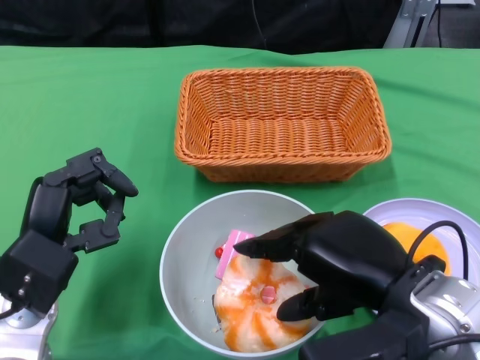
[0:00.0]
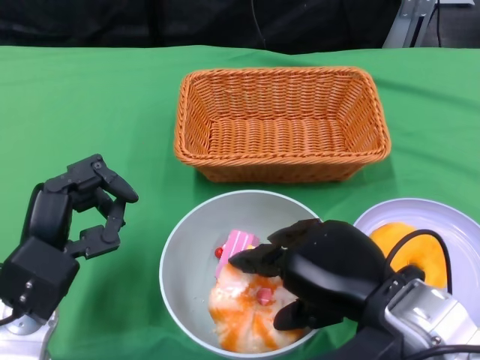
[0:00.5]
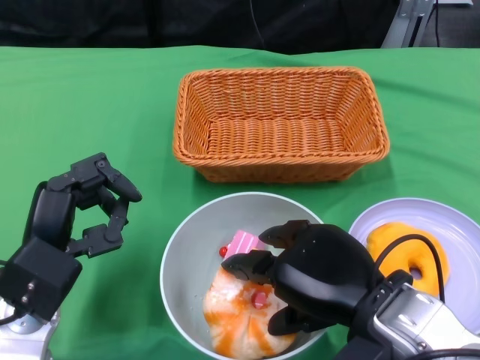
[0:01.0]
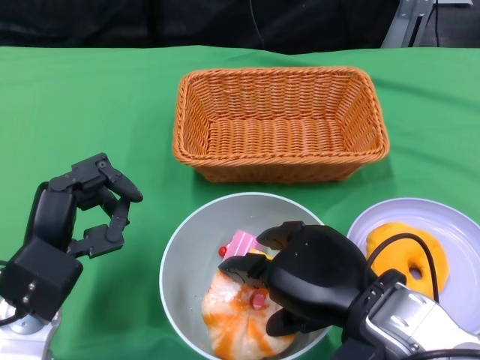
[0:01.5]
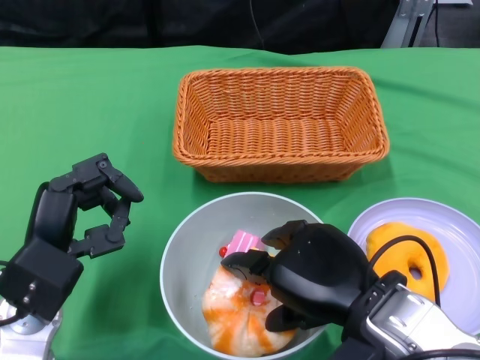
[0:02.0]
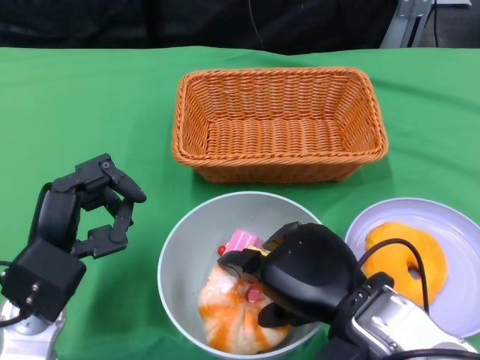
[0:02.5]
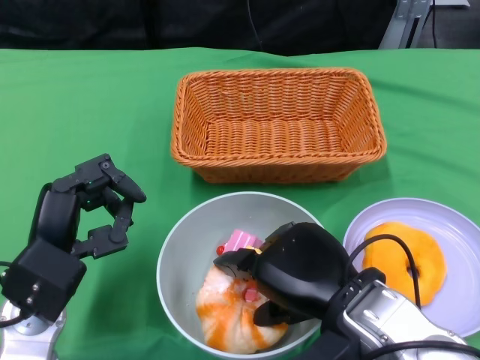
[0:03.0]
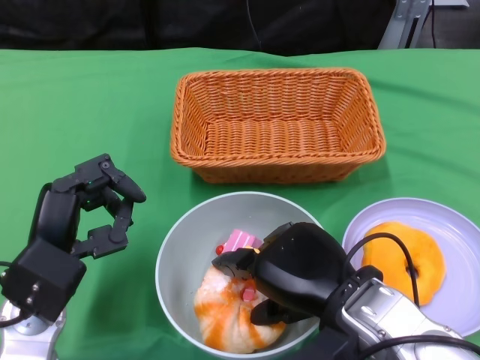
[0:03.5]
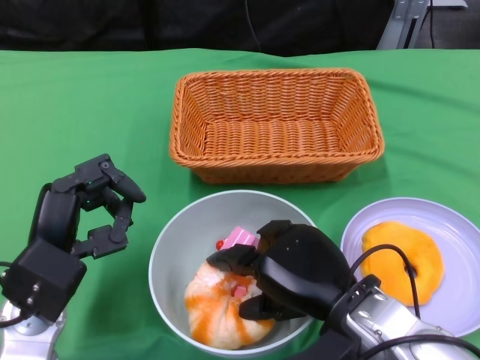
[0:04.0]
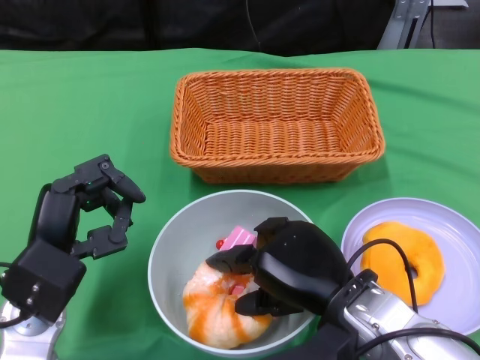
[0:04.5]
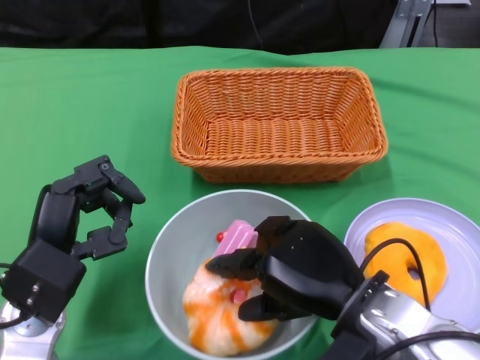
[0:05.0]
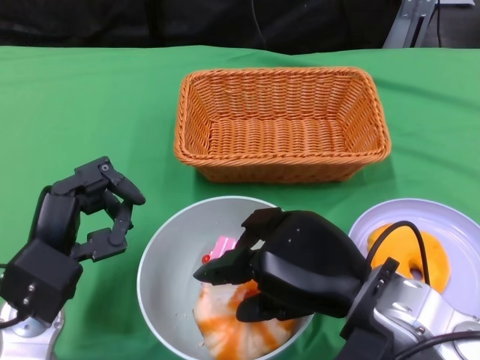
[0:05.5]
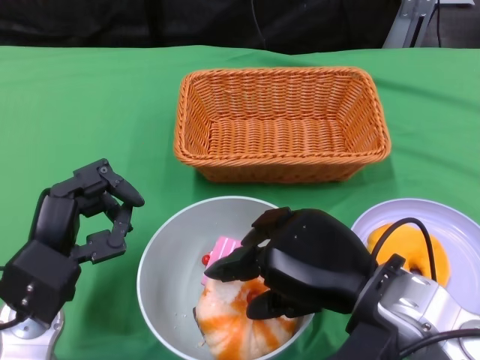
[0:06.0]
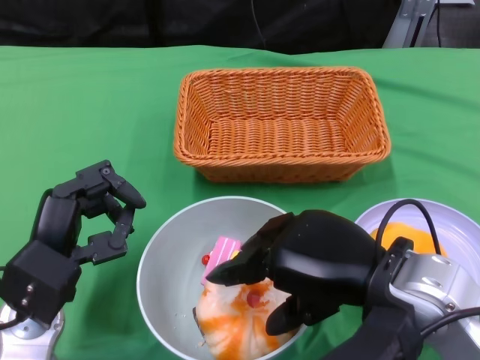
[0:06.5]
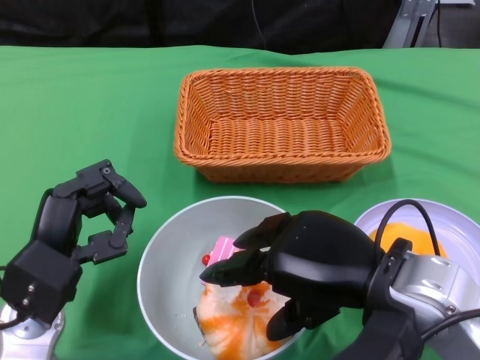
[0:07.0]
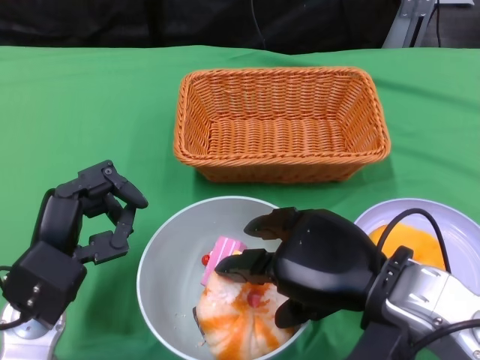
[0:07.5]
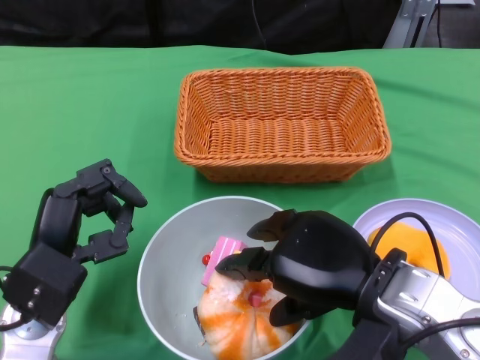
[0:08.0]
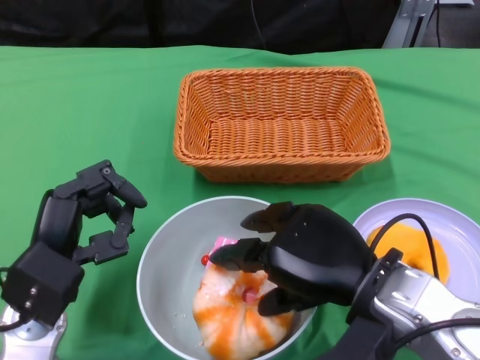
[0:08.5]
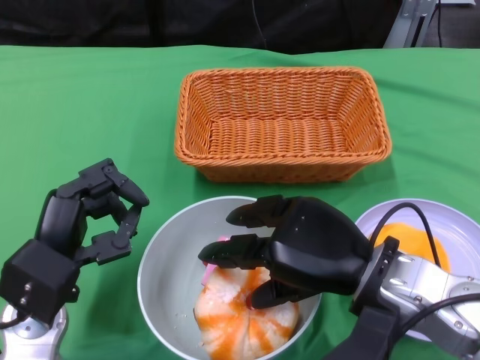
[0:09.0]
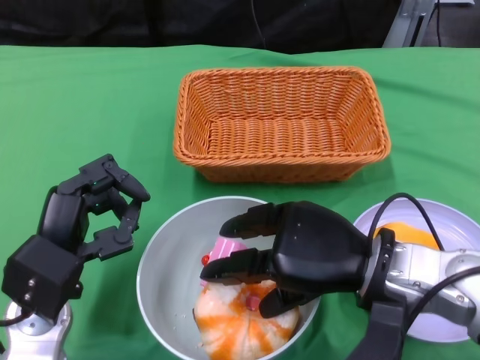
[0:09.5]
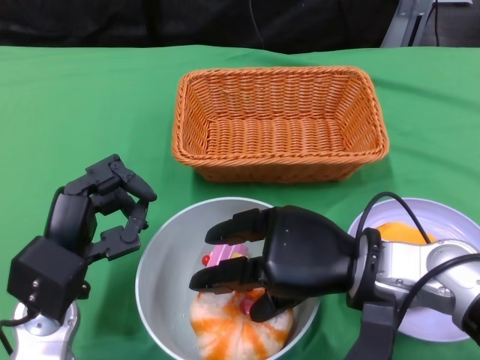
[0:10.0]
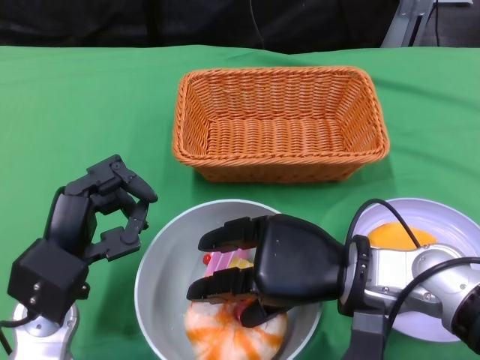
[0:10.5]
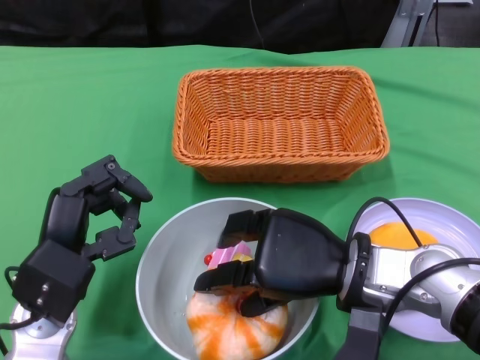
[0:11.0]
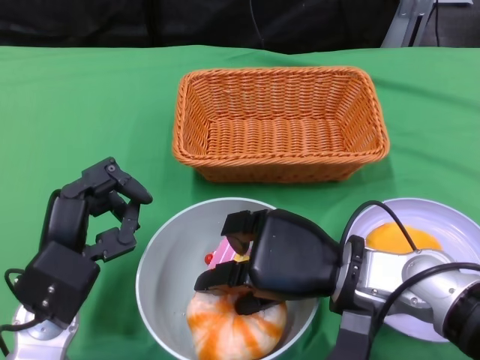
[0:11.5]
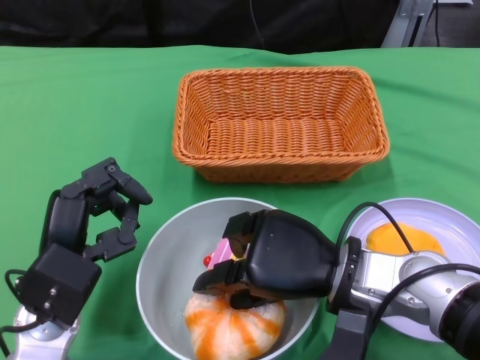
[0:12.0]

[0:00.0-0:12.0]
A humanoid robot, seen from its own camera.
0:02.0 to 0:04.0: The right hand moves roughly 5 cm.
0:04.0 to 0:06.0: The right hand is displaced upward by roughly 5 cm.
0:06.0 to 0:08.0: The hands make only small movements.
0:08.0 to 0:10.0: The right hand changes place by roughly 5 cm.
0:10.0 to 0:12.0: The hands stay close to where they were, moving slightly.

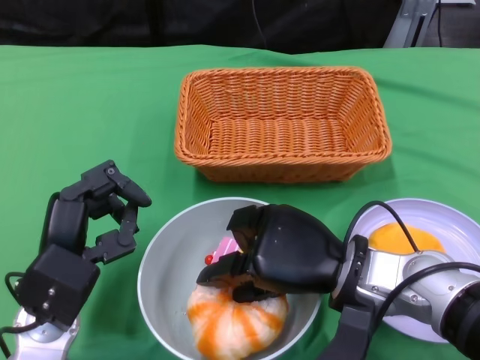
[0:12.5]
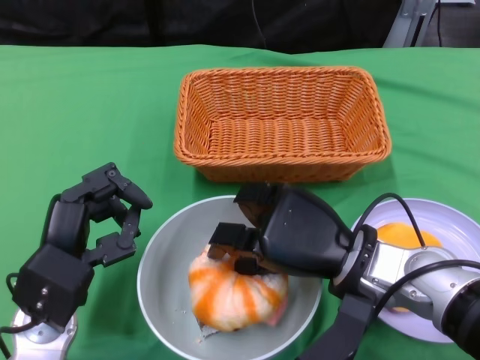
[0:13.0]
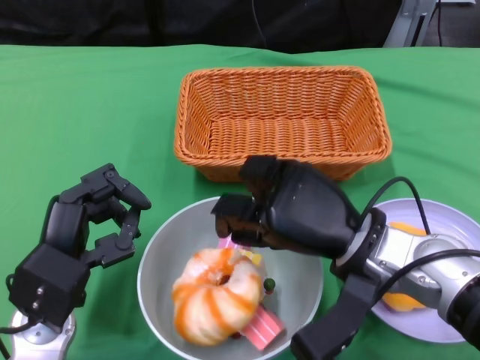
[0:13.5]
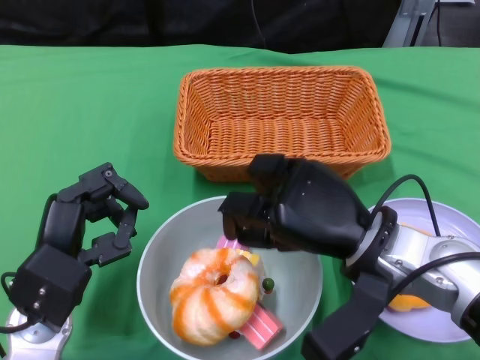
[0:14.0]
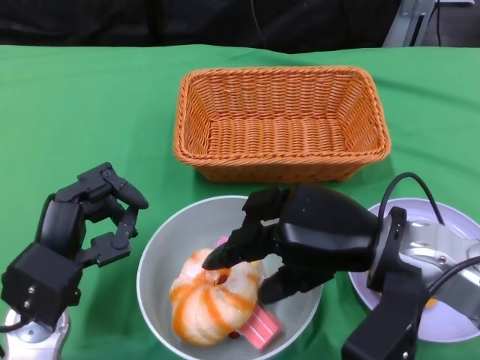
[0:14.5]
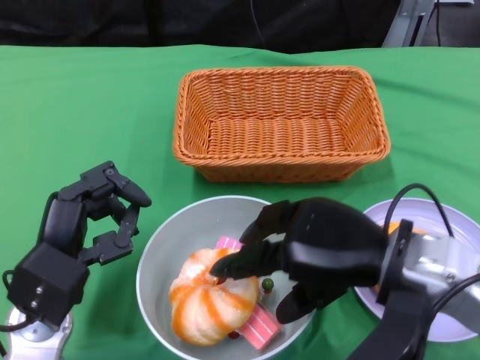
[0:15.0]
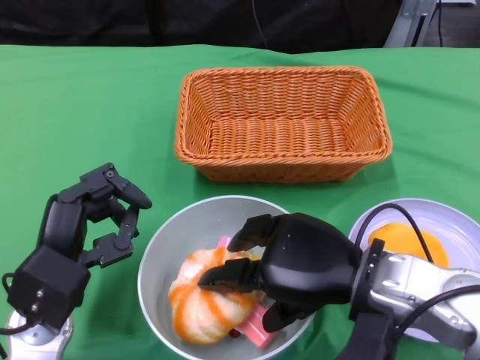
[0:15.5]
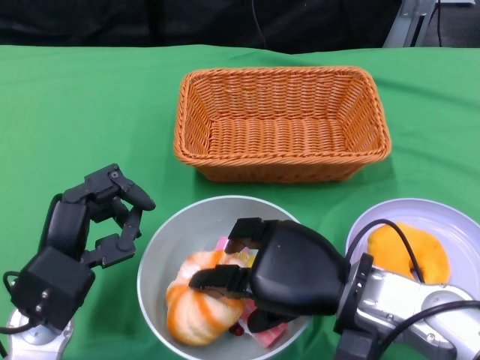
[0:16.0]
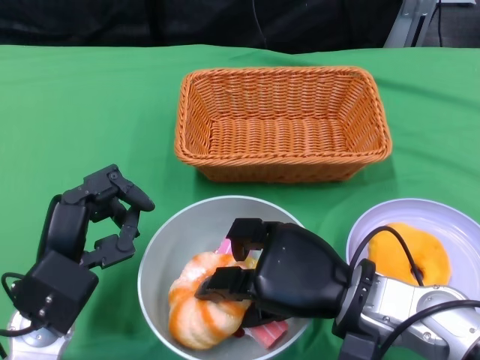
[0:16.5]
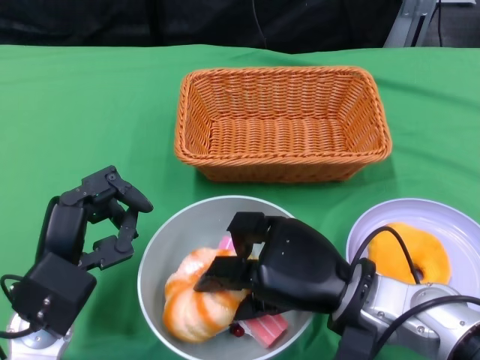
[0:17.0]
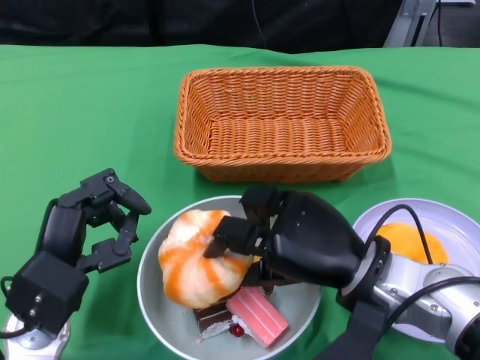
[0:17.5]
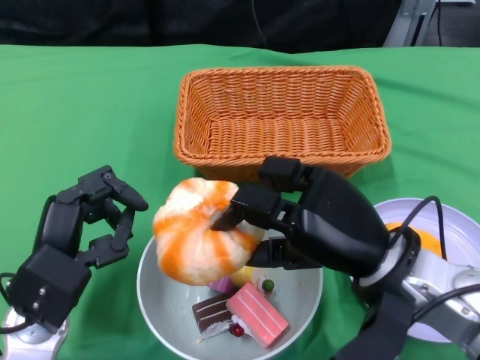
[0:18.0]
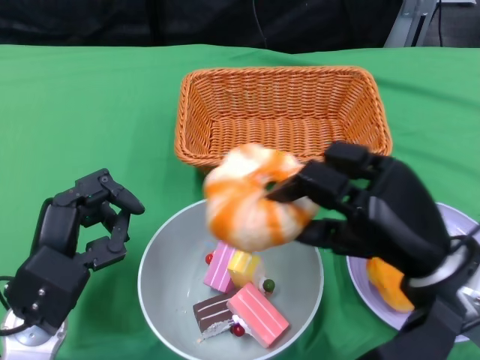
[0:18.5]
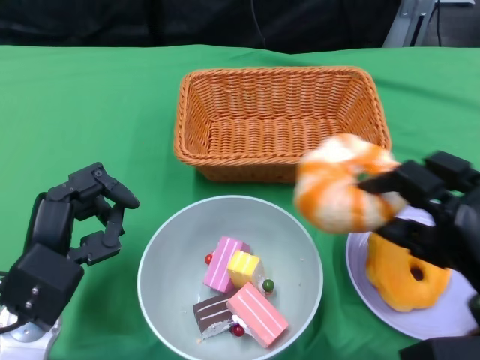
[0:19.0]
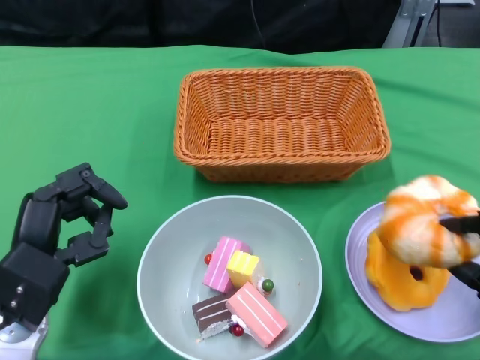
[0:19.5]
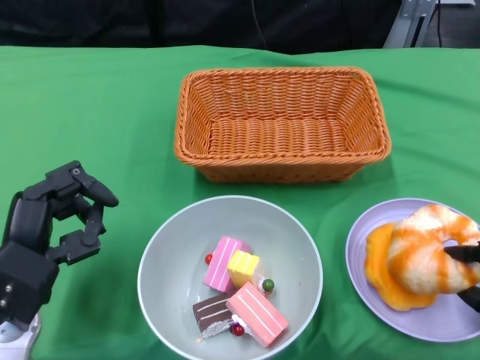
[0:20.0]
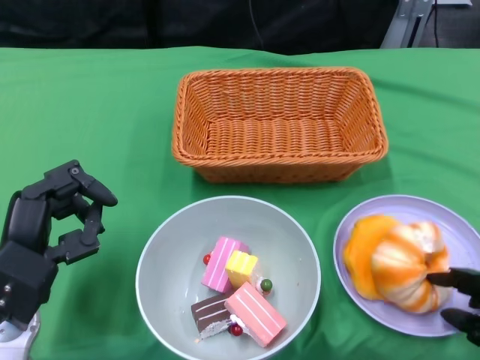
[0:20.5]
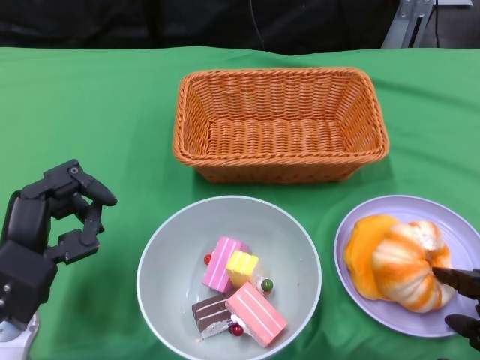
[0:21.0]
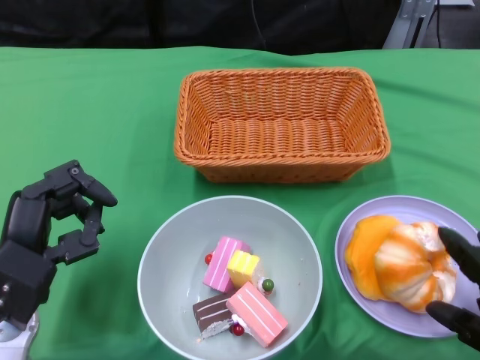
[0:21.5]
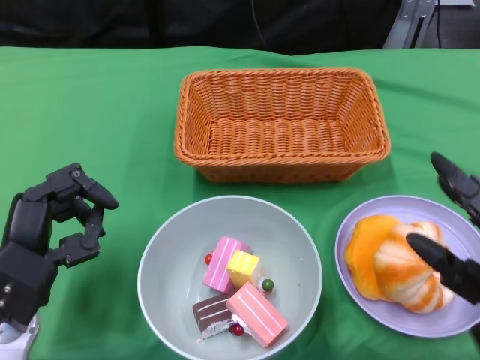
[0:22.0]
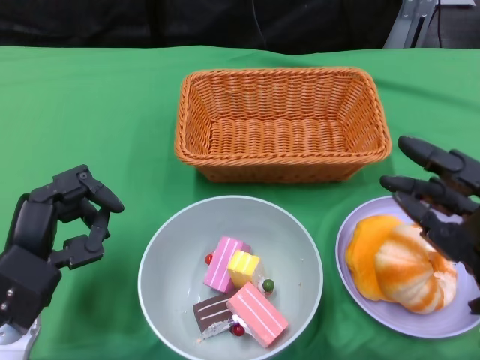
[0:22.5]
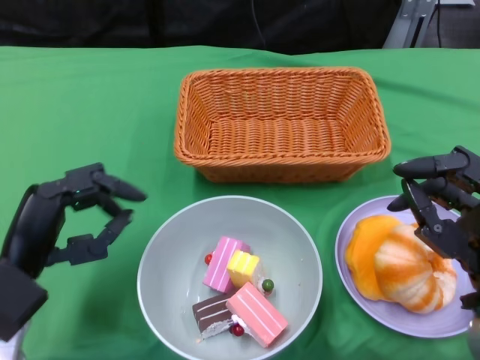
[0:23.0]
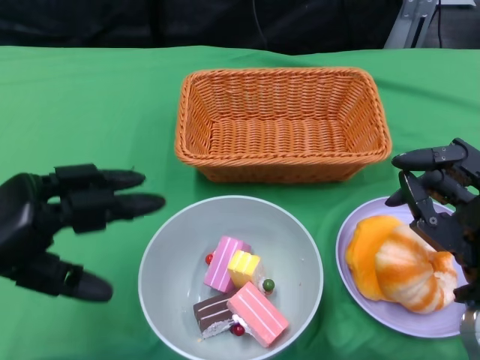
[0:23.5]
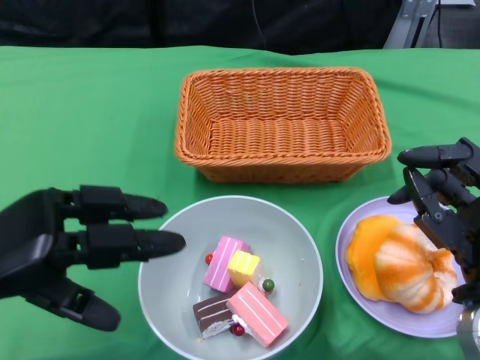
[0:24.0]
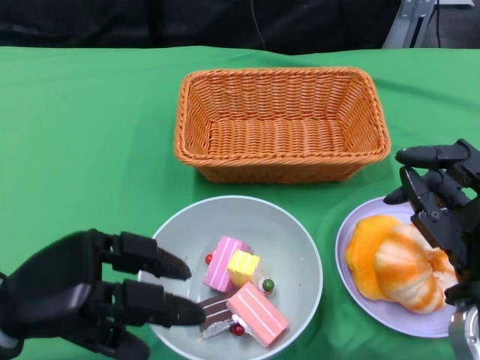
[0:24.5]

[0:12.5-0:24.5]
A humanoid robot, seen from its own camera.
Step, 0:12.5 to 0:21.5: Pick up the bread with the right gripper and place it on the plate.
0:12.5 to 0:14.5: The right hand heads upward, covering approximately 5 cm.
0:14.5 to 0:16.5: The right hand moves downward, approximately 5 cm.
0:16.5 to 0:18.5: The right hand shifts approximately 5 cm to the right.
0:18.5 to 0:20.5: The right hand travels to the right, downward and backward by some 15 cm.
0:20.5 to 0:22.5: The right hand shifts approximately 10 cm upward.
0:22.5 to 0:24.5: The left hand goes roughly 5 cm upward.

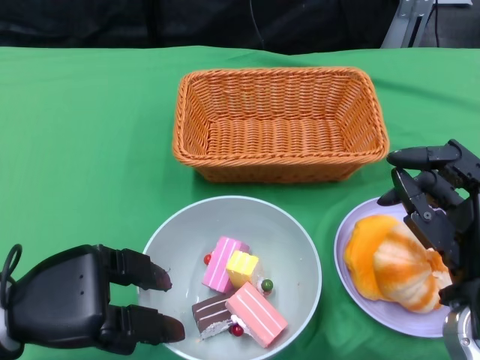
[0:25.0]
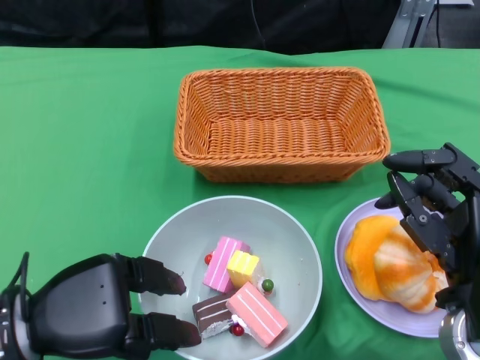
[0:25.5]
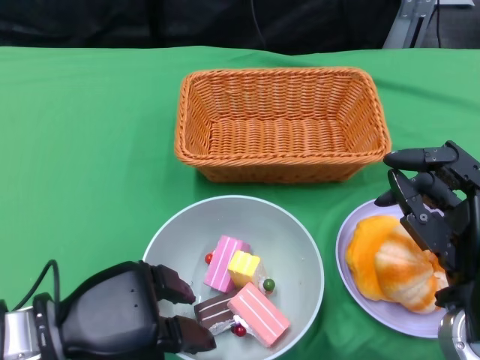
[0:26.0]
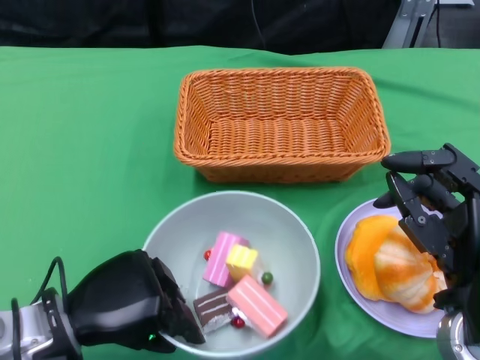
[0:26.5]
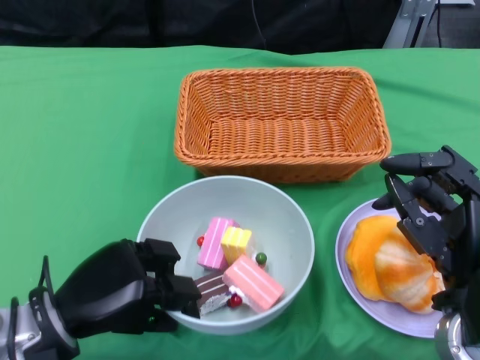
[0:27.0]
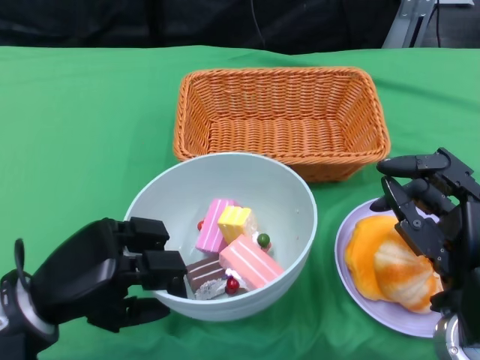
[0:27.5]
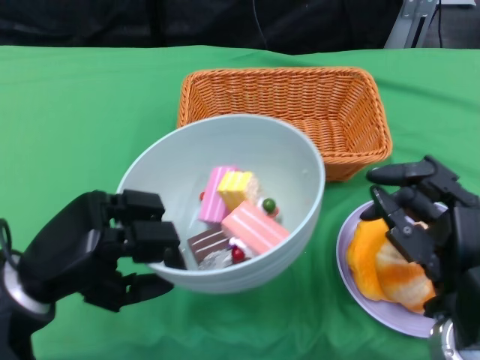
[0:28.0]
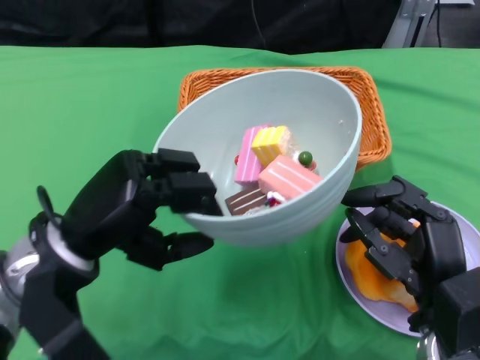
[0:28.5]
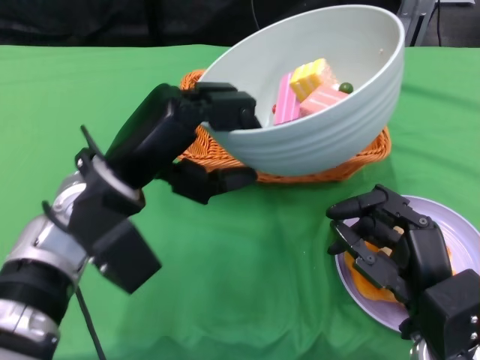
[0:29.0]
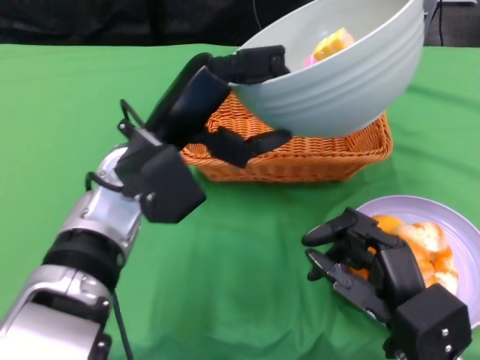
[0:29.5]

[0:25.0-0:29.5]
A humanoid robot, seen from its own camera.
Step, 0:25.0 to 0:28.5: Grasp the bowl with the left gripper.
0:25.0 to 0:27.0: The left hand shifts by approximately 5 cm.
0:27.0 to 0:29.5: The right hand shifts by roughly 5 cm, while the left hand goes about 20 cm upward, to the right and forward.
